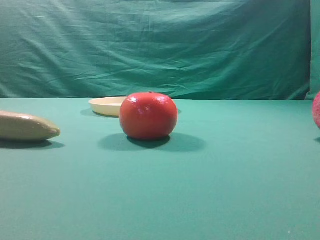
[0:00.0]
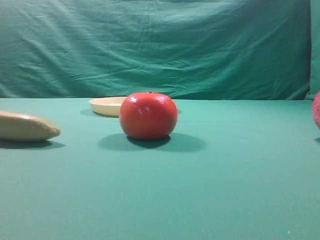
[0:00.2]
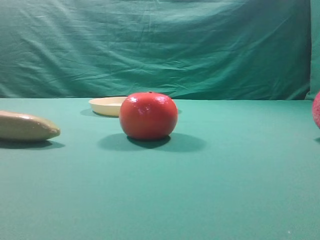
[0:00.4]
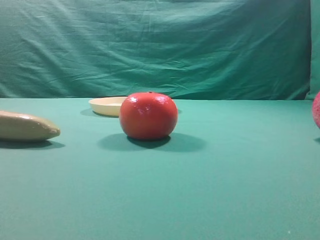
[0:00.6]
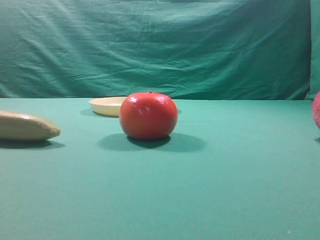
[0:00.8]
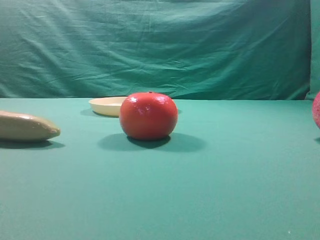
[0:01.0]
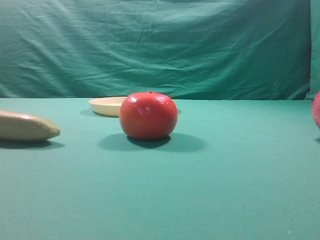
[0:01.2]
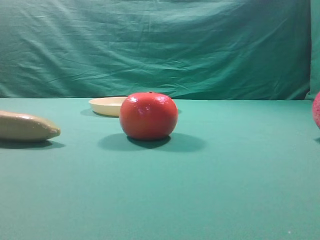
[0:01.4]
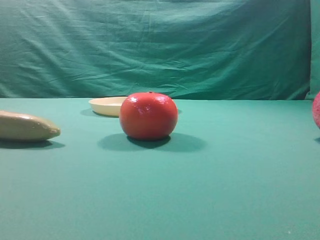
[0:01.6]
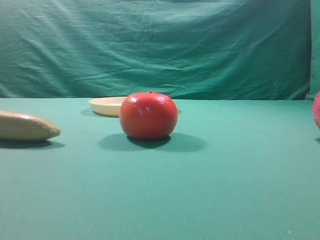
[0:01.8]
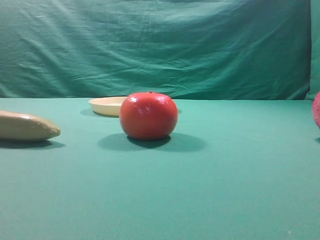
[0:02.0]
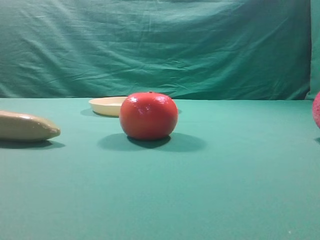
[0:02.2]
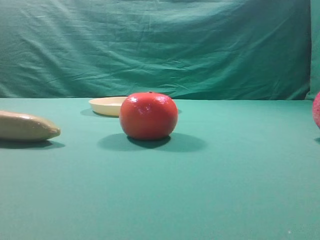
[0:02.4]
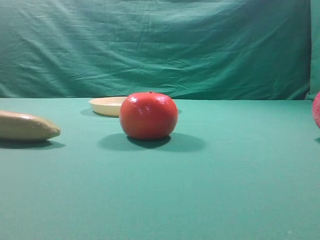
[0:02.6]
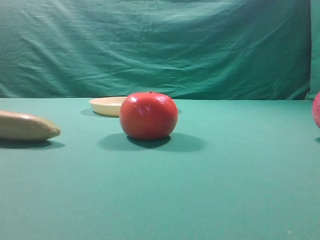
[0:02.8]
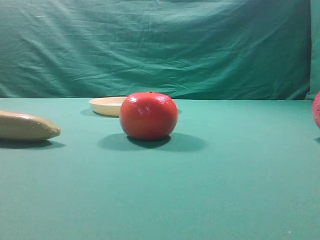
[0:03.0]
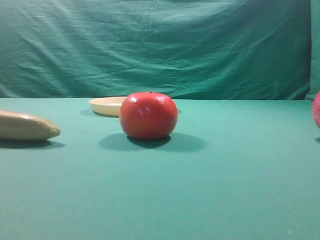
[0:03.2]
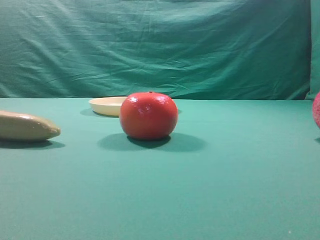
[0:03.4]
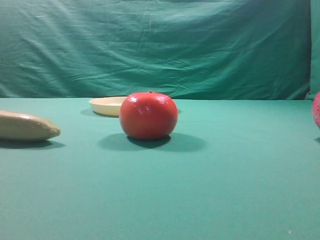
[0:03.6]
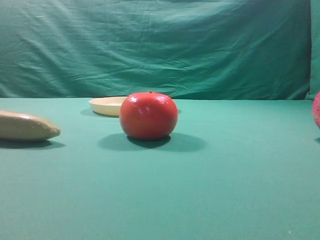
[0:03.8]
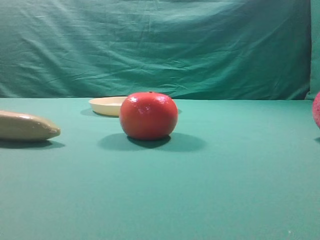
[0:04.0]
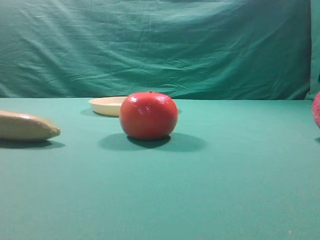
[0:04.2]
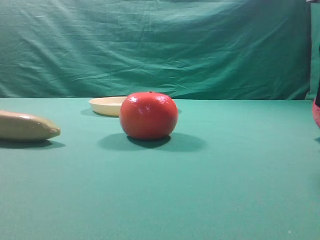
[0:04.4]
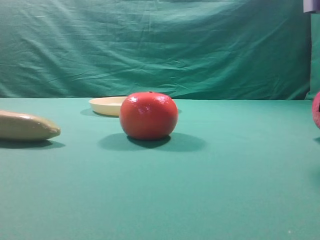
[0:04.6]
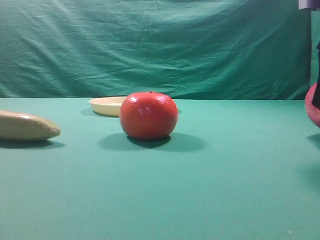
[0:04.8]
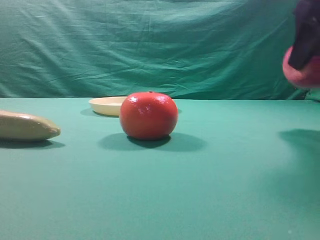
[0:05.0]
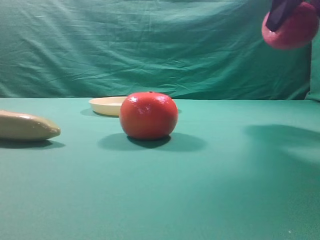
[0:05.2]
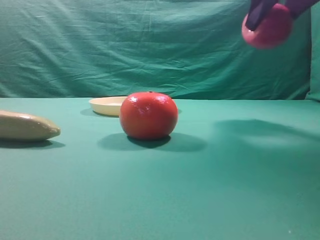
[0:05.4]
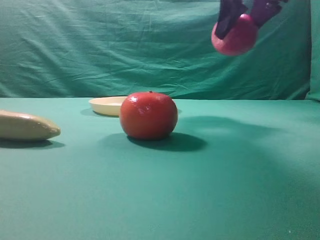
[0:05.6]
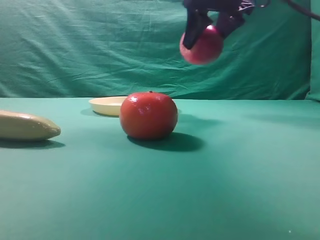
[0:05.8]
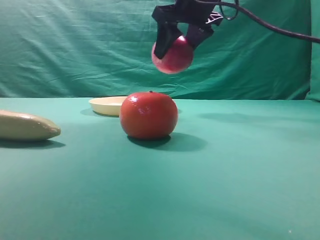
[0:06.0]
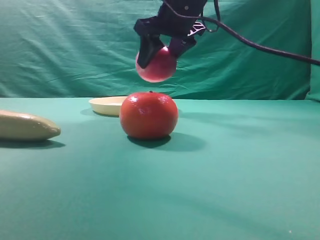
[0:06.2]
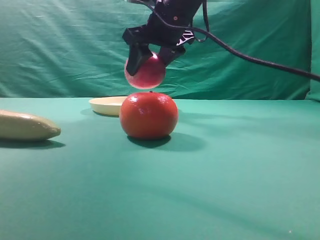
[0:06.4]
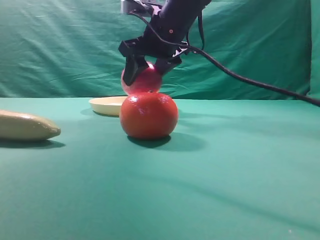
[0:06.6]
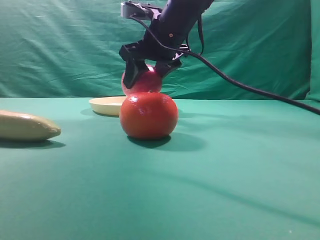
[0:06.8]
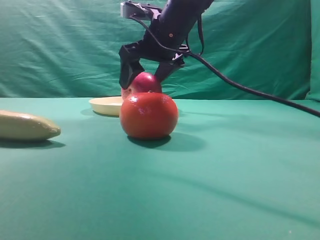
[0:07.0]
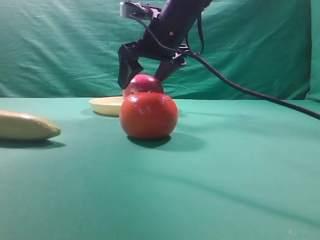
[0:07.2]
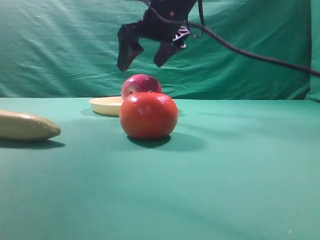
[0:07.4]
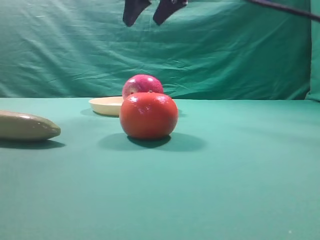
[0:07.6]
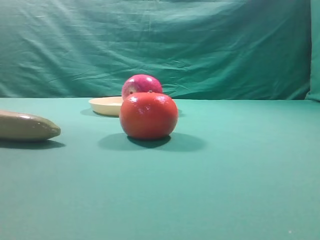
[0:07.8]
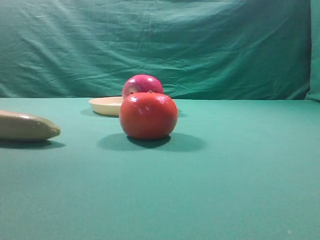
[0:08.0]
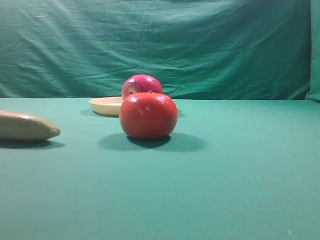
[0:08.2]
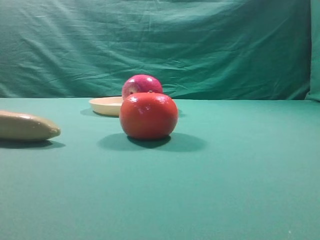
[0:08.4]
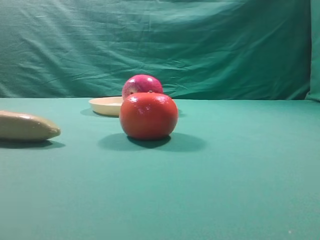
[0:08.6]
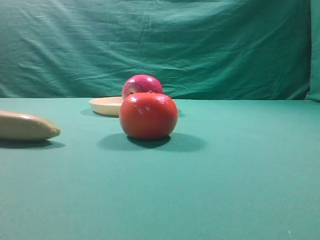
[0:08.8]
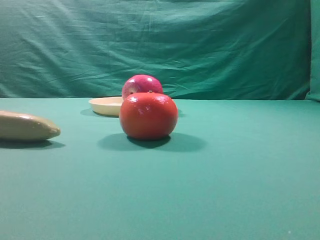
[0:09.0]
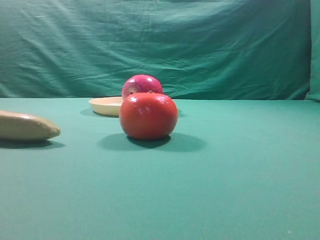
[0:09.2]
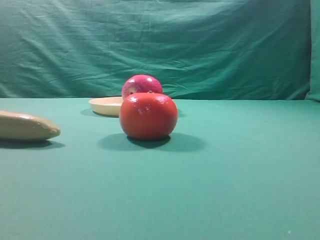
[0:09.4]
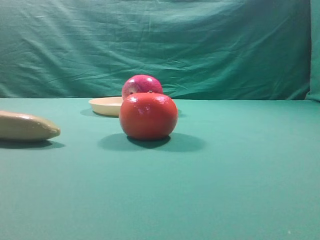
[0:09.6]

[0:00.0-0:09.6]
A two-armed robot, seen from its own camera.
Task of the whole recording: grasp the apple and place it into the yellow plate.
Step, 0:05.0 to 0:07.4: Place the picked object into the yellow plate.

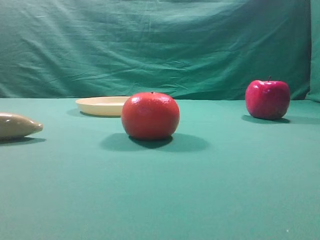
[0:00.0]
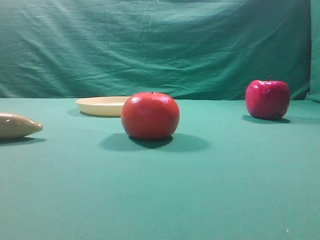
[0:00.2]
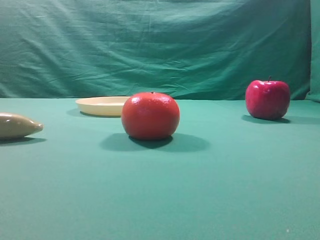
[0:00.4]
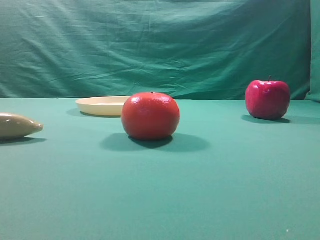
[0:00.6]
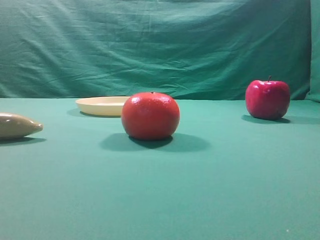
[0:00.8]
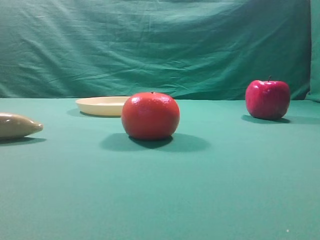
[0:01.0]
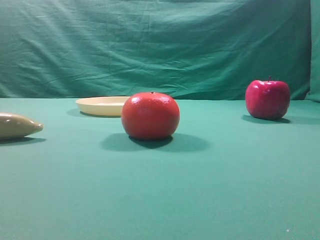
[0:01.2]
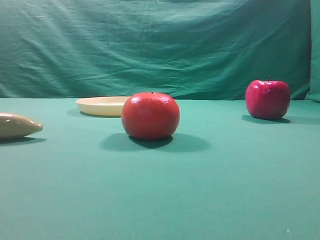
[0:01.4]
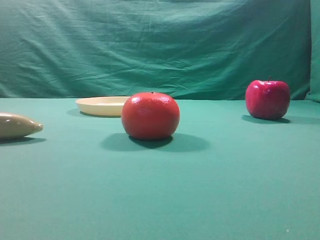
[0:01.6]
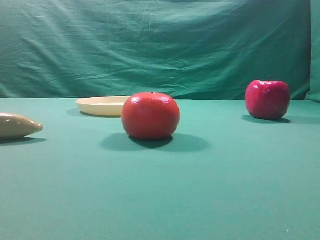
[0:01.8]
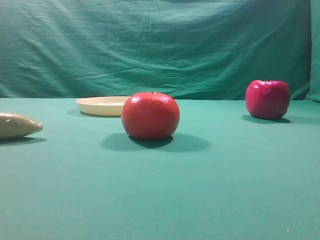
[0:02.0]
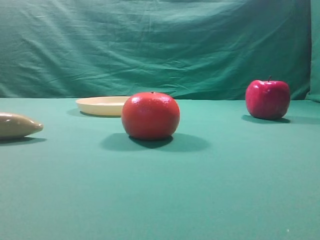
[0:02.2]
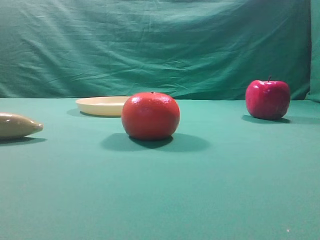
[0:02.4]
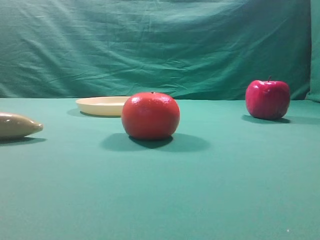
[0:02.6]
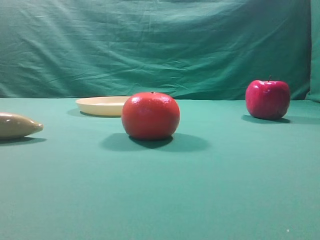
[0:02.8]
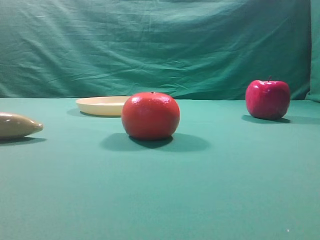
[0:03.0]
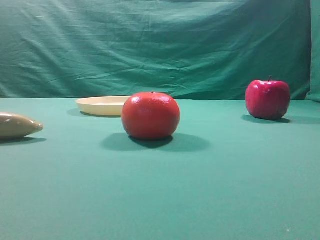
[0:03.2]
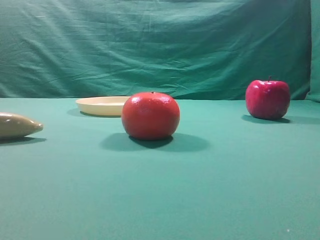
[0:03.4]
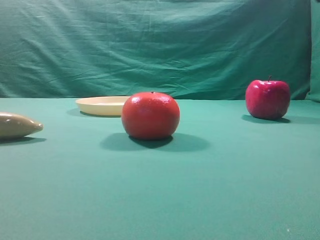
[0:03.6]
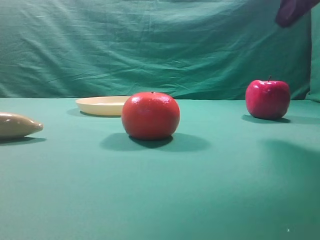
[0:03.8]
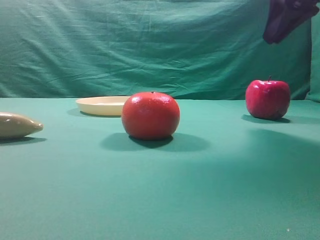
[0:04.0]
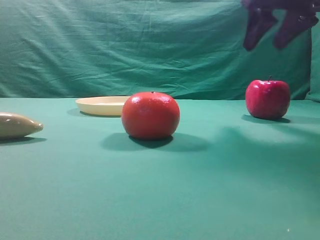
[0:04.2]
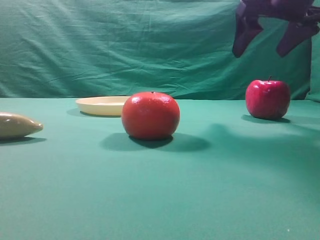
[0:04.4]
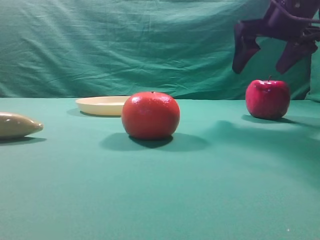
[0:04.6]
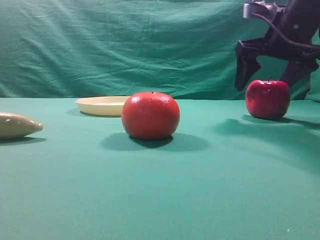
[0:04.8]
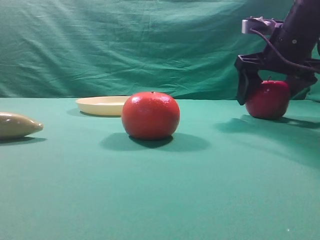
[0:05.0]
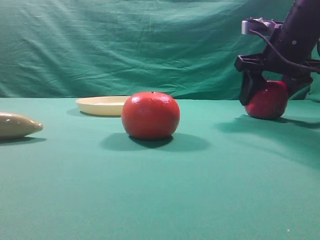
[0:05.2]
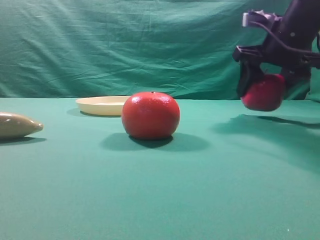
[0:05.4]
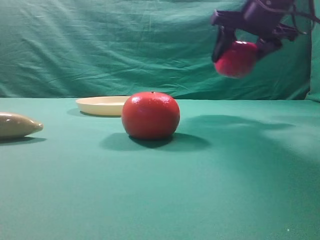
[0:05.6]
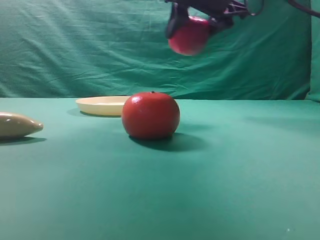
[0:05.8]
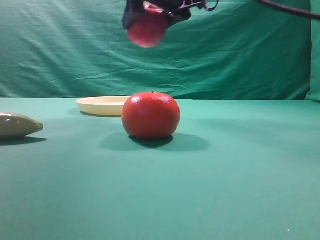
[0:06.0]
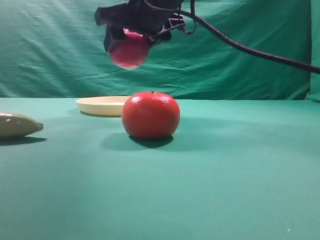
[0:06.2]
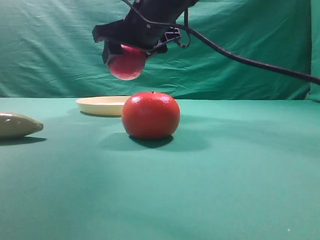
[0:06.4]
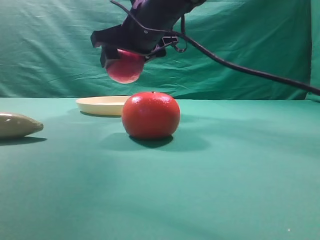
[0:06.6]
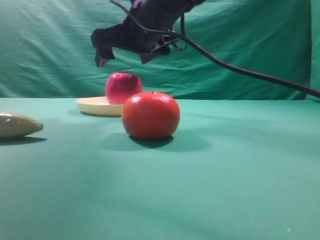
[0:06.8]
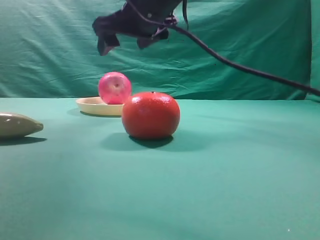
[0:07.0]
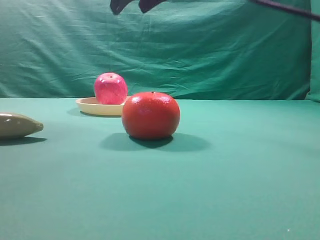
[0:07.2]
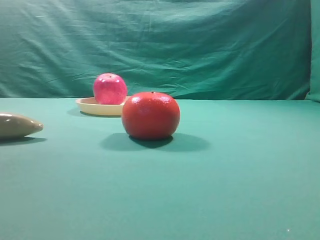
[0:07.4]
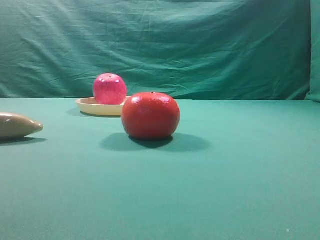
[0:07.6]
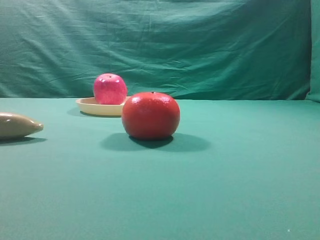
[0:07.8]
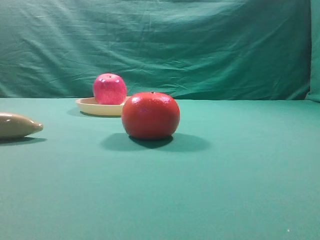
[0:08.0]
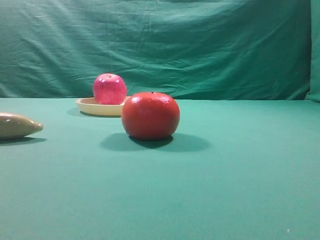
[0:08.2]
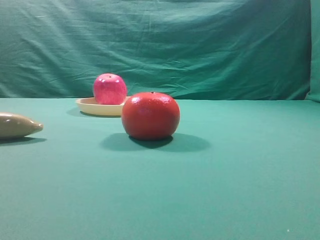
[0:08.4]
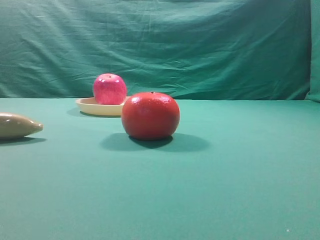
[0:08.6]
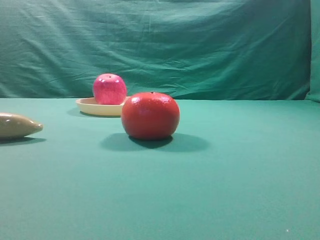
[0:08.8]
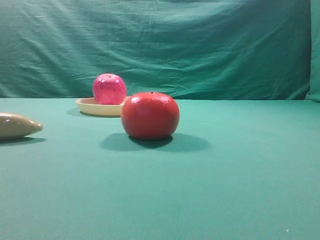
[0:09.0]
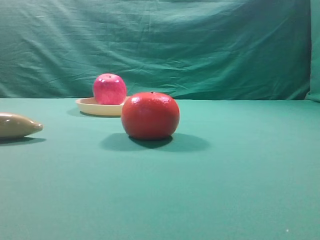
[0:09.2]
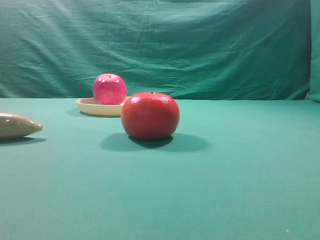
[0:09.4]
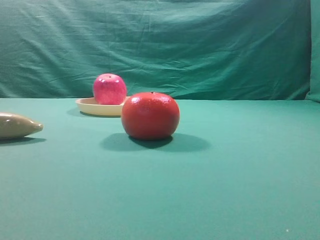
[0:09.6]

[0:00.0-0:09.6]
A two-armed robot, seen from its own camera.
Task of the whole recording: grasp the apple and place it into the yellow plate.
Step, 0:00.0 to 0:05.4: Grasp the fruit that can keep the doctor away.
Step, 0:05.6 to 0:07.0: Place the picked object into the yellow plate.

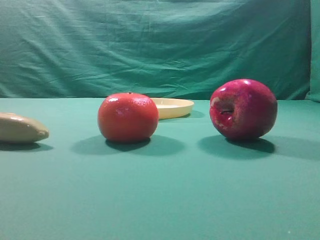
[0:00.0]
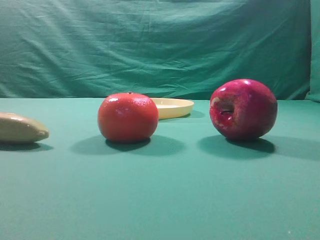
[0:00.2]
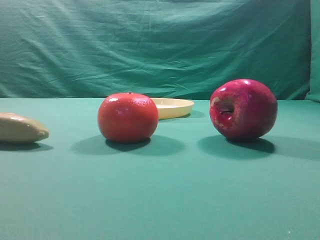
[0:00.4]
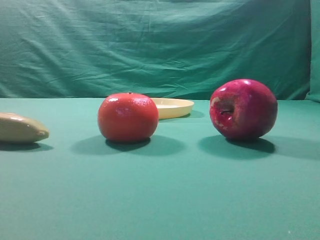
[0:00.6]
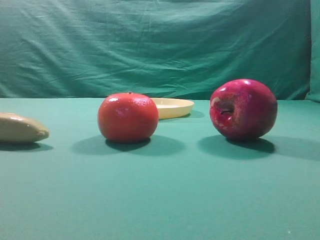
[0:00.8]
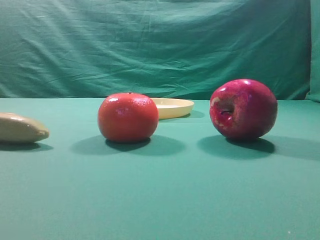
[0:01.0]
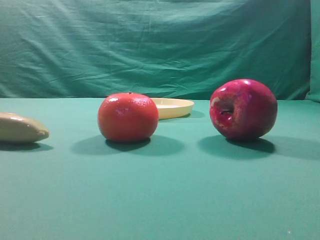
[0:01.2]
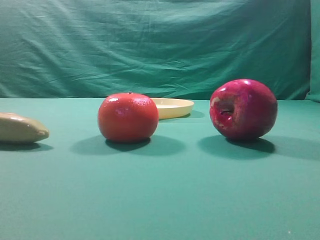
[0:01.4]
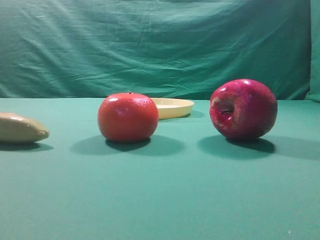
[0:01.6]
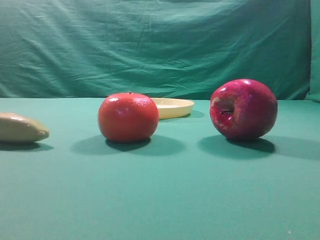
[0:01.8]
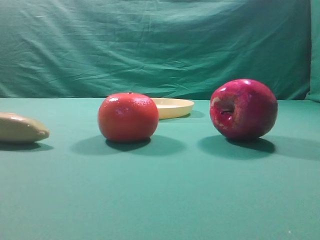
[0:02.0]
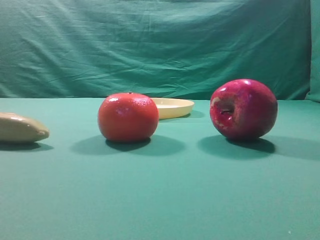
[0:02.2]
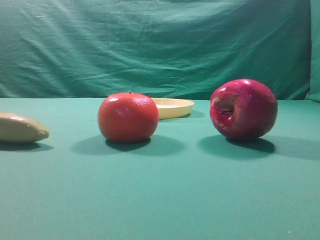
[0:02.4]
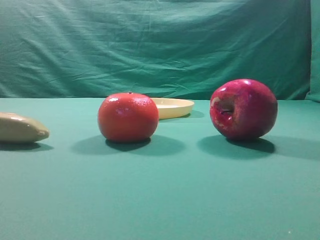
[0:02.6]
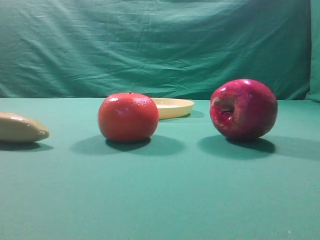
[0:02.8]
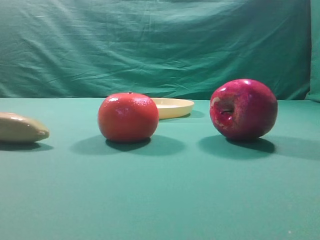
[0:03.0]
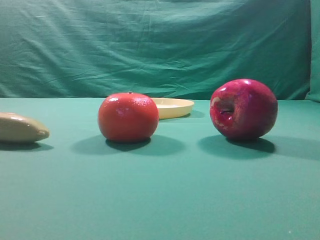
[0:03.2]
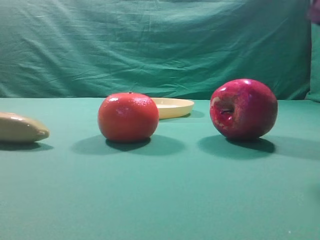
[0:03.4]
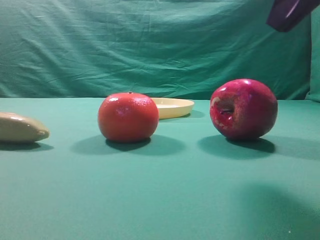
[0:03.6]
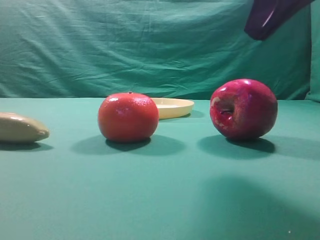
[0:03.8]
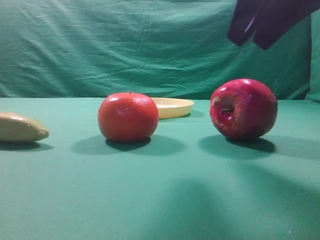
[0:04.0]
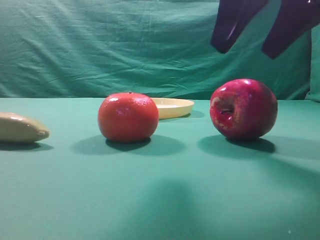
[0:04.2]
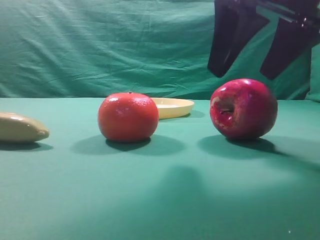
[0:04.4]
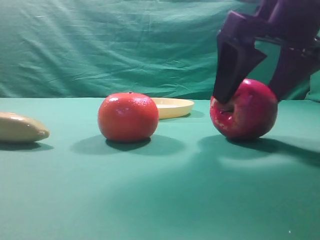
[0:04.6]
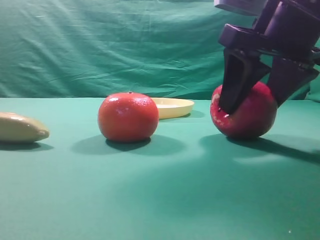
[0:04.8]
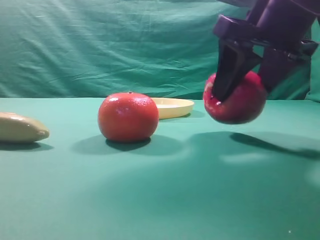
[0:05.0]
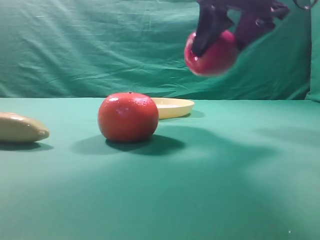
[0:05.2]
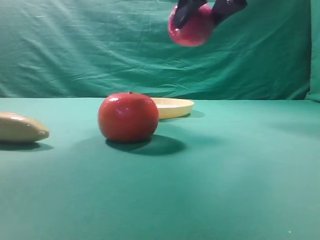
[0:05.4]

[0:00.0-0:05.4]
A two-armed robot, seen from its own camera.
Task of the whole recording: grasp the apple and place it into the yellow plate.
Step, 0:00.0 to 0:05.0: Grasp the fruit that can keep the doctor away.
